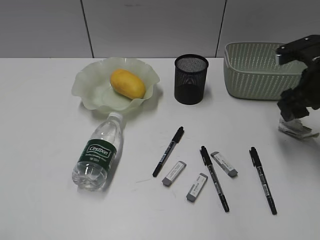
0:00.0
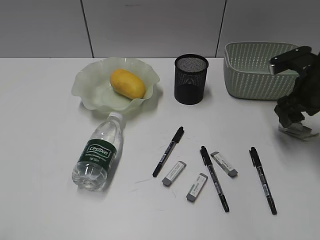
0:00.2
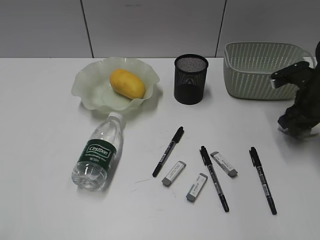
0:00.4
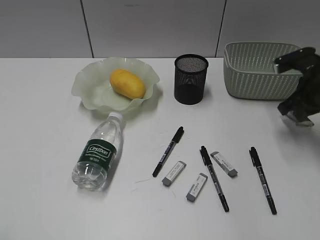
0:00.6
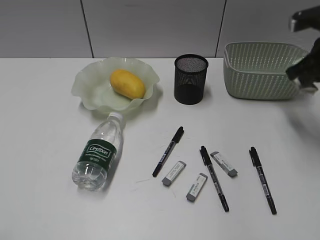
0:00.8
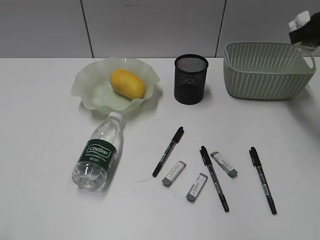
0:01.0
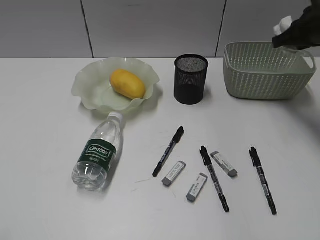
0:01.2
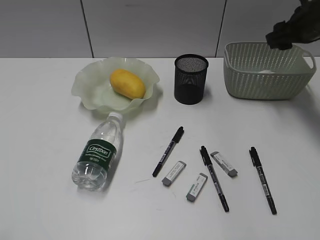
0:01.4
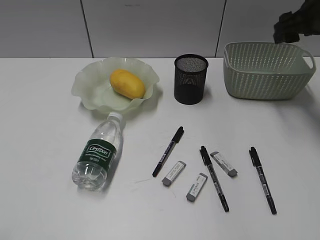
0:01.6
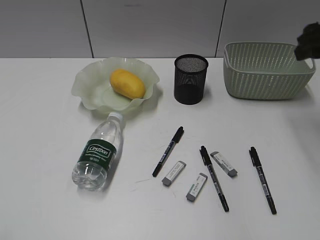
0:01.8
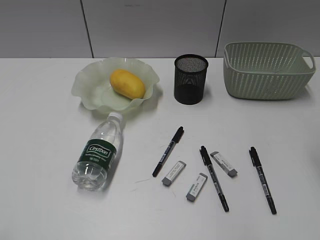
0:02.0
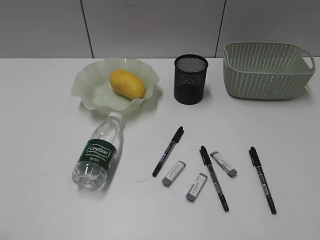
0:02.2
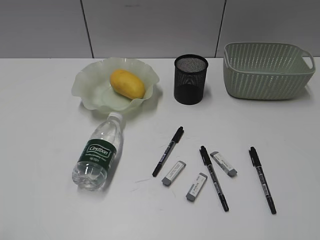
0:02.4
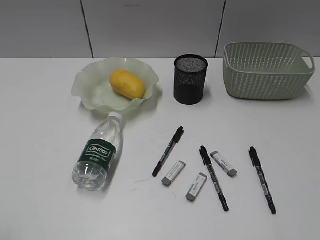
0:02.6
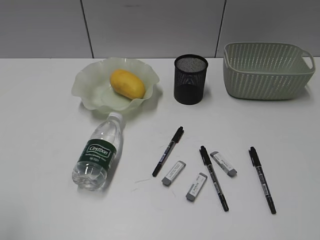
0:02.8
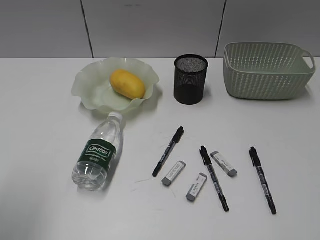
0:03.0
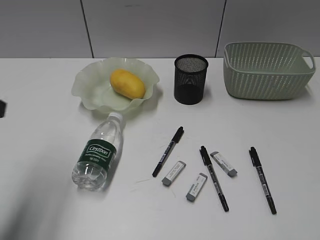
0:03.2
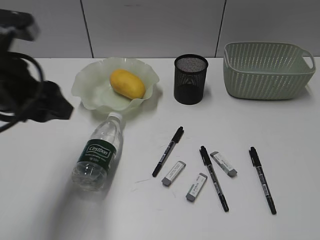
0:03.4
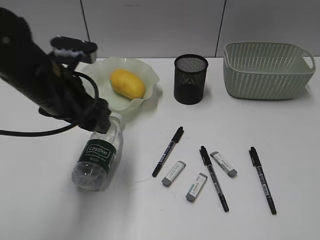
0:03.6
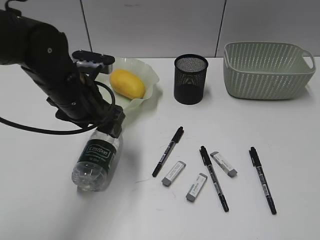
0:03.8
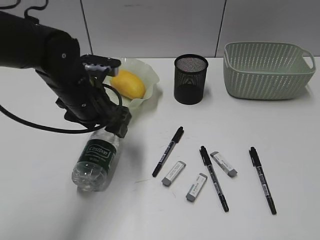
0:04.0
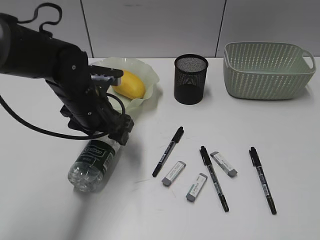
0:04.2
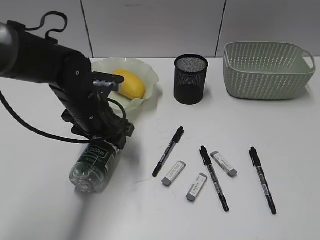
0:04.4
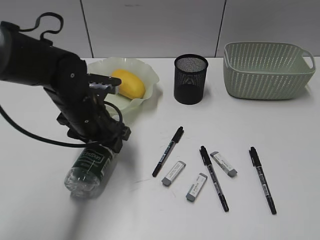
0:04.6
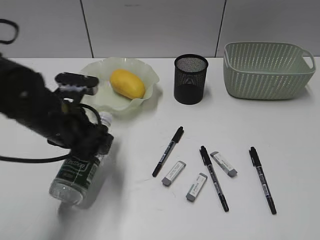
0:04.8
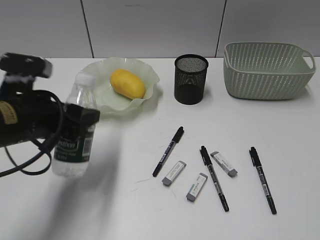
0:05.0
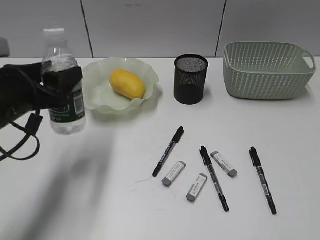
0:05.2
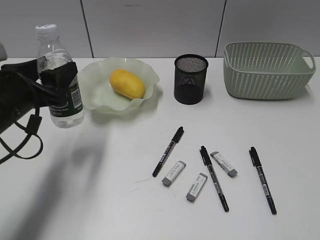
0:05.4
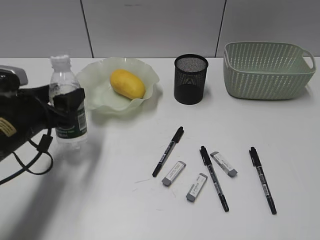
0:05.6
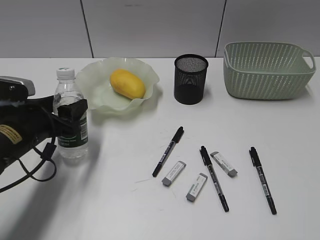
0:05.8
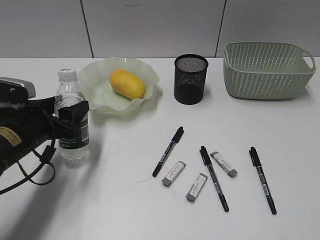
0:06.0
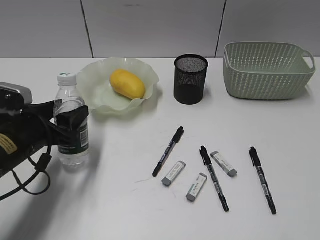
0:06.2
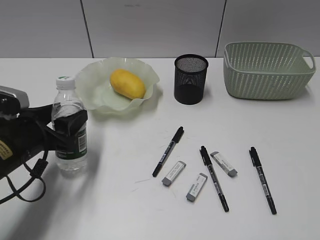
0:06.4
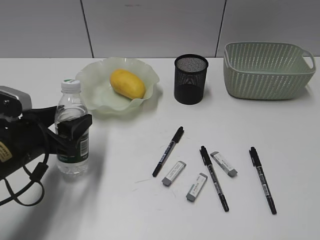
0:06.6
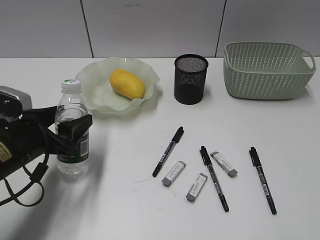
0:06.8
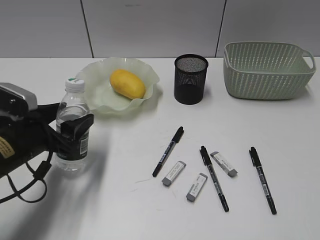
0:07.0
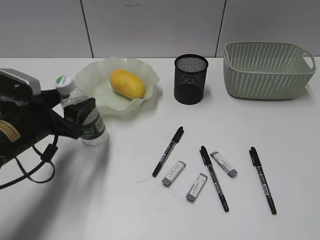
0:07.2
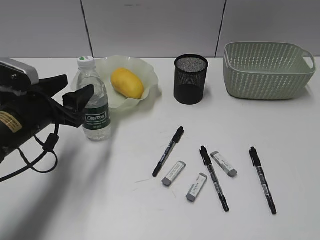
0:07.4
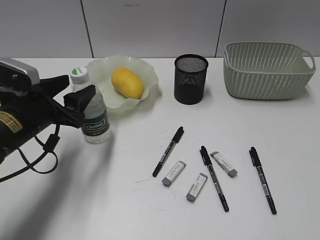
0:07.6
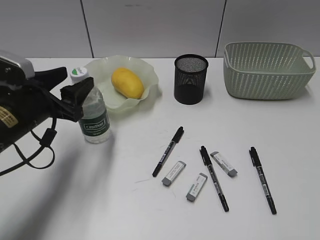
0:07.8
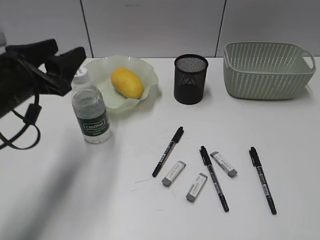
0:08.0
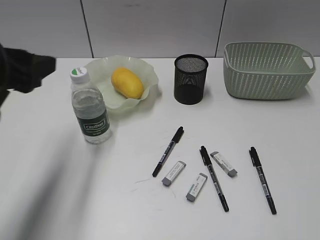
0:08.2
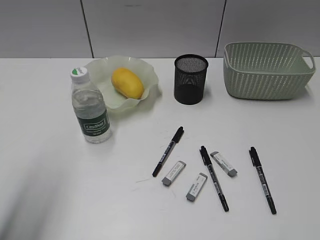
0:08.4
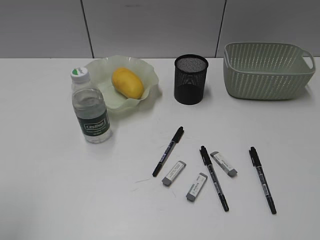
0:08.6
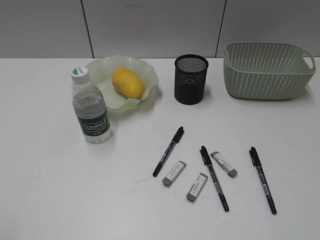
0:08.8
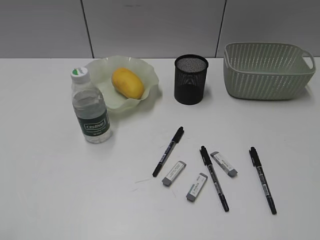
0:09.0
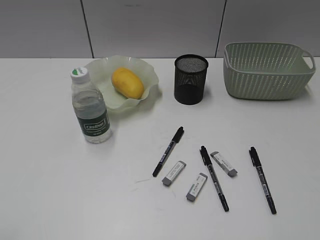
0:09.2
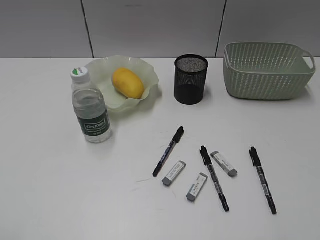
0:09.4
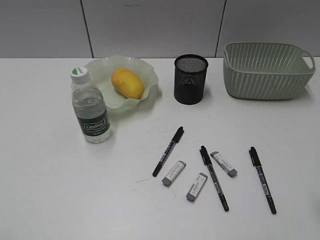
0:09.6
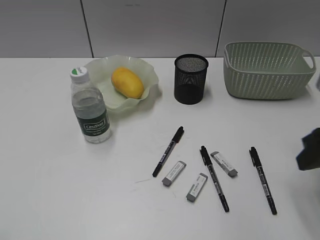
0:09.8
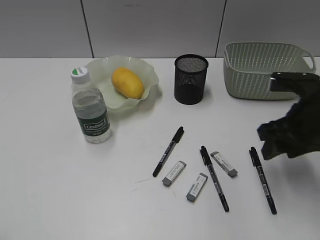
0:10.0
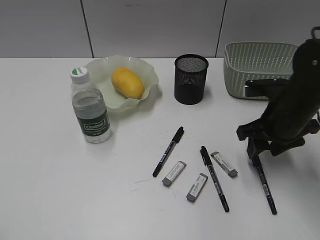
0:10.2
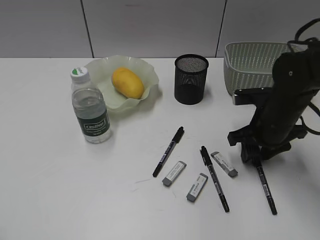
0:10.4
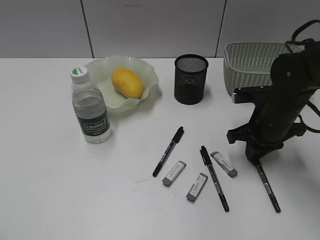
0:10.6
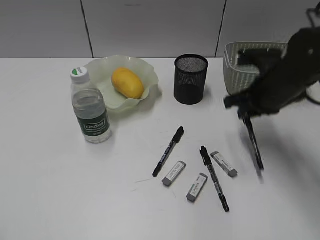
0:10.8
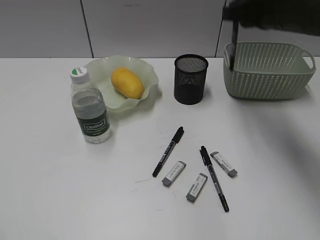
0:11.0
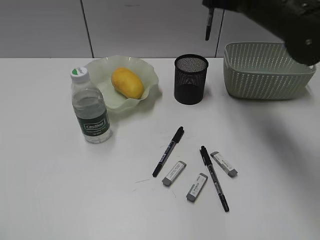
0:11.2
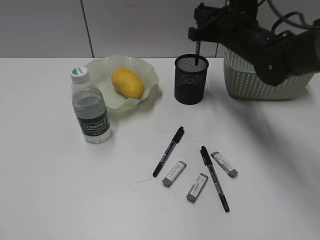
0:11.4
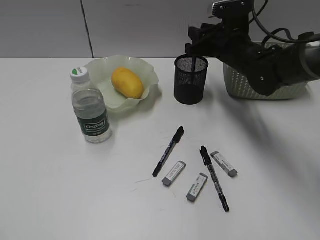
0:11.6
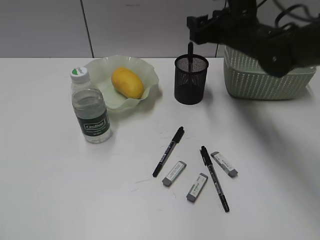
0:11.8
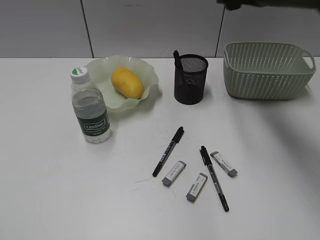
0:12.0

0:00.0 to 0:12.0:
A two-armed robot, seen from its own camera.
Step, 0:00.6 to 0:01.4: Place the waste paper in the basket with right gripper.
Step, 0:01.6 to 0:04.4: Grasp the bottle with left gripper.
Step, 0:04.6 to 0:07.4: Stand the bottle with left gripper.
Step, 0:07.6 to 0:10.4: Grasp the black pen with right gripper.
Step, 0:10.6 to 0:11.8: Place the black pen in pen holder with right gripper.
0:00.0 to 0:01.6: The right gripper moves up and down over some 15 cm, changing direction 2 times, and closes, then opens again.
0:01.6 to 0:03.0: The left gripper shifts approximately 10 cm forward. The right gripper travels backward by approximately 40 cm.
0:03.0 to 0:04.4: The left gripper moves forward, to the right and downward, about 35 cm.
0:04.4 to 0:06.0: The left gripper heads to the left and backward, covering roughly 10 cm.
0:06.0 to 0:07.6: The grippers move only a little.
0:07.6 to 0:09.0: The left gripper shifts approximately 35 cm backward, upward and to the left.
0:09.0 to 0:10.4: The right gripper shifts roughly 35 cm forward and downward.
0:10.4 to 0:12.0: The right gripper moves up and down over roughly 20 cm, changing direction 2 times, and closes and opens again.

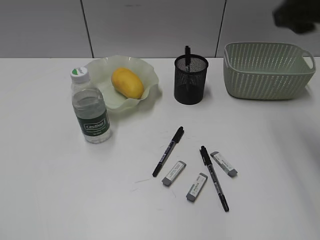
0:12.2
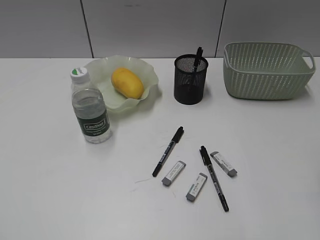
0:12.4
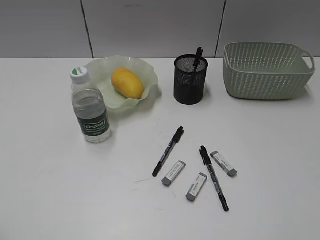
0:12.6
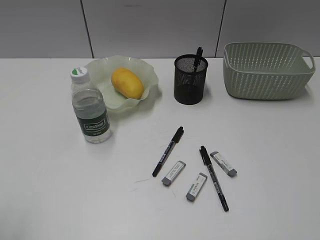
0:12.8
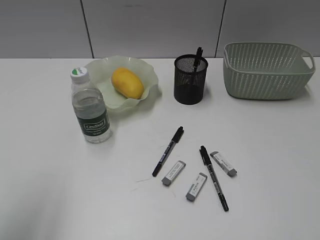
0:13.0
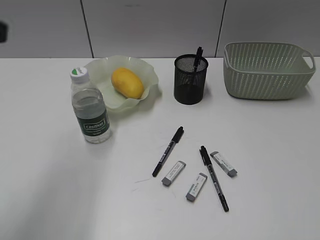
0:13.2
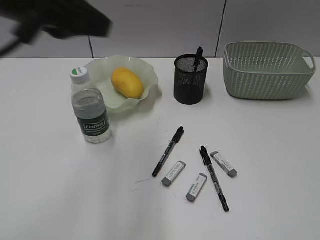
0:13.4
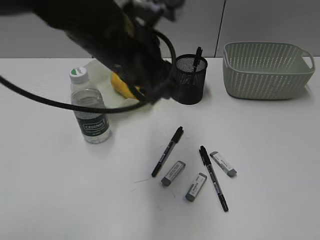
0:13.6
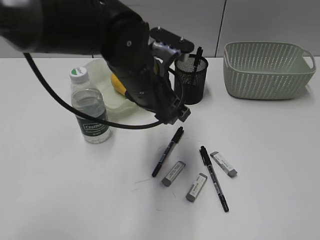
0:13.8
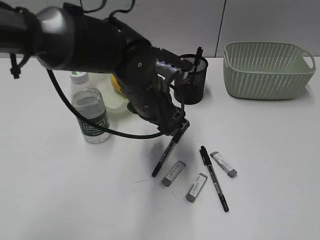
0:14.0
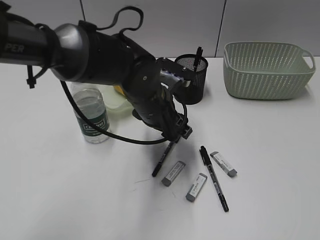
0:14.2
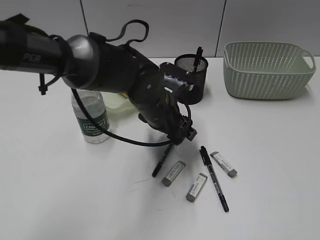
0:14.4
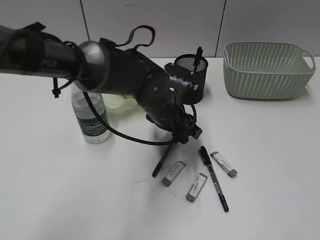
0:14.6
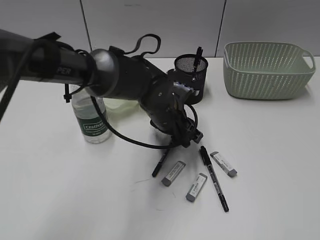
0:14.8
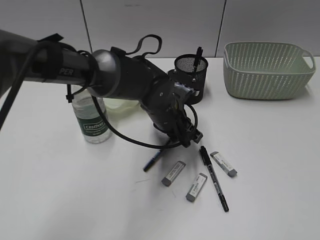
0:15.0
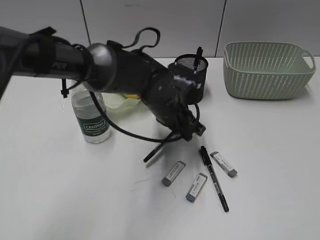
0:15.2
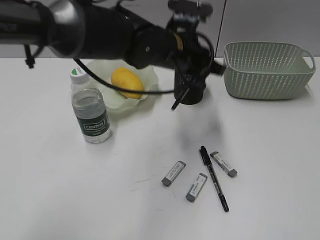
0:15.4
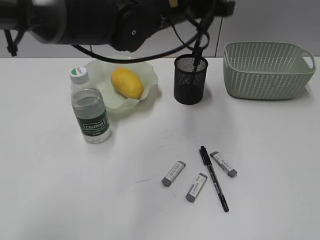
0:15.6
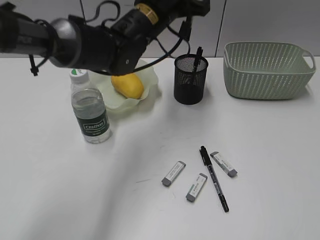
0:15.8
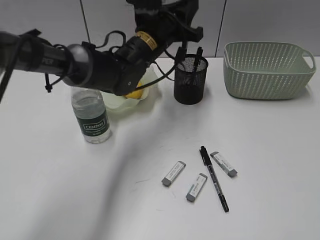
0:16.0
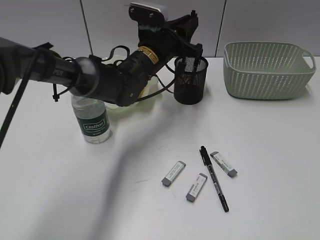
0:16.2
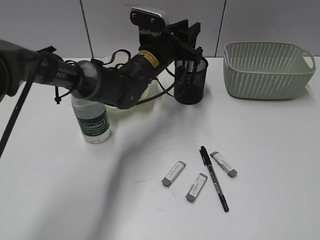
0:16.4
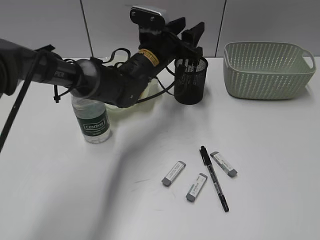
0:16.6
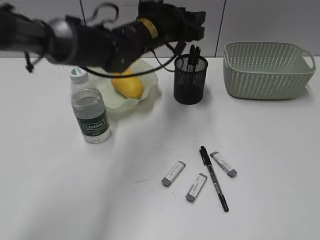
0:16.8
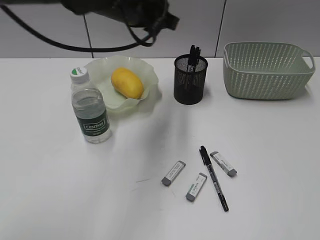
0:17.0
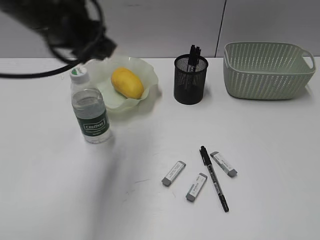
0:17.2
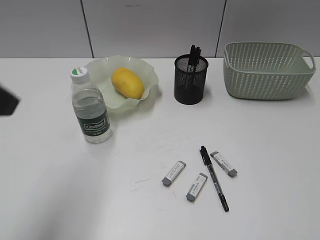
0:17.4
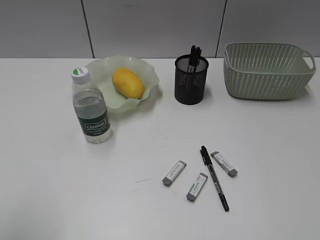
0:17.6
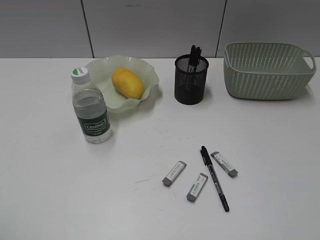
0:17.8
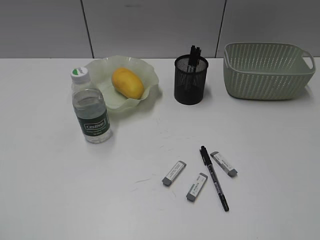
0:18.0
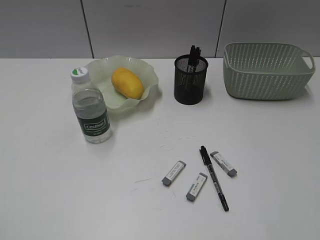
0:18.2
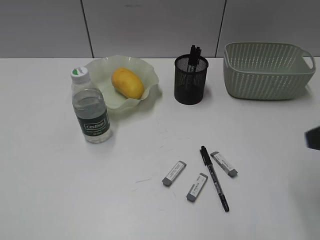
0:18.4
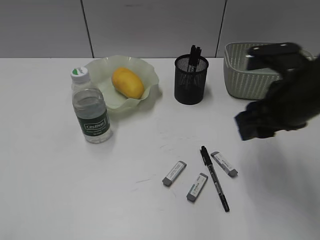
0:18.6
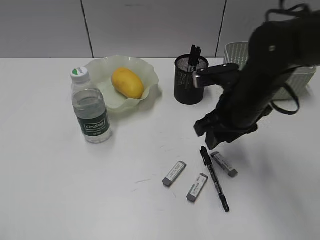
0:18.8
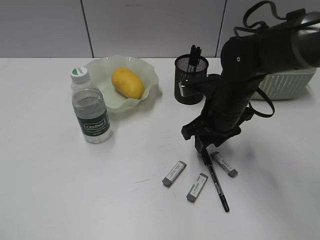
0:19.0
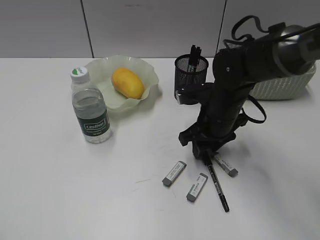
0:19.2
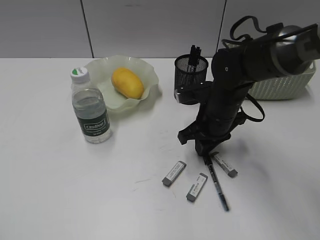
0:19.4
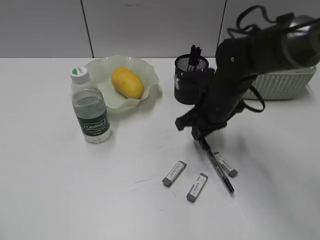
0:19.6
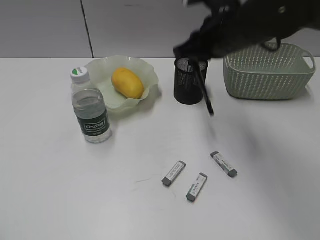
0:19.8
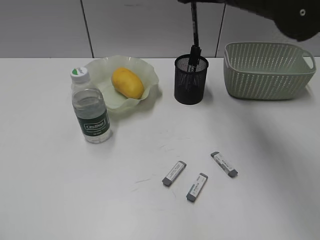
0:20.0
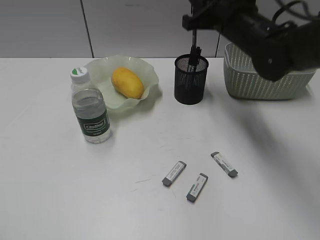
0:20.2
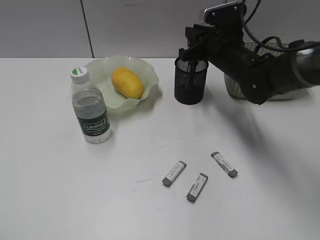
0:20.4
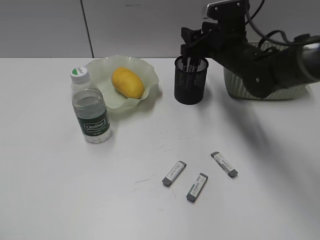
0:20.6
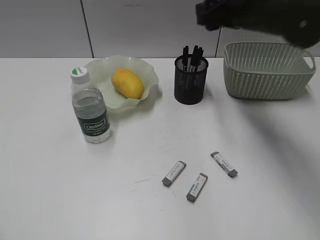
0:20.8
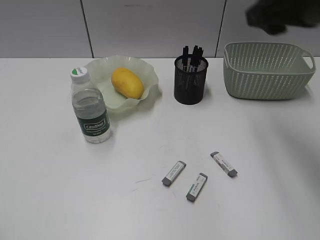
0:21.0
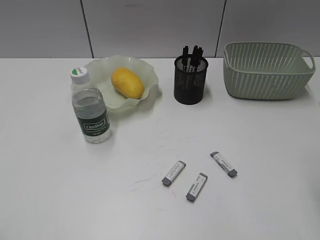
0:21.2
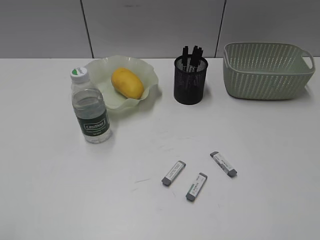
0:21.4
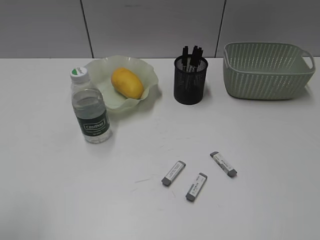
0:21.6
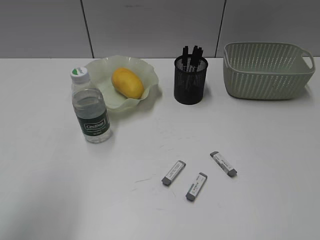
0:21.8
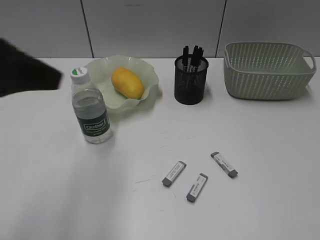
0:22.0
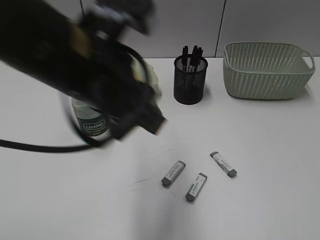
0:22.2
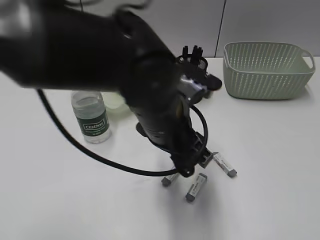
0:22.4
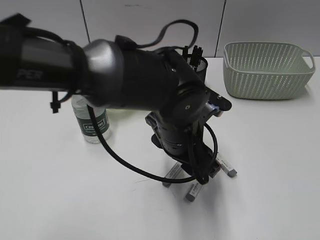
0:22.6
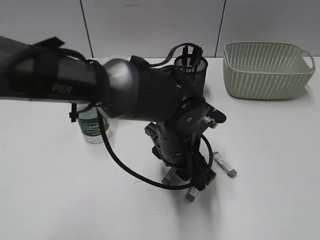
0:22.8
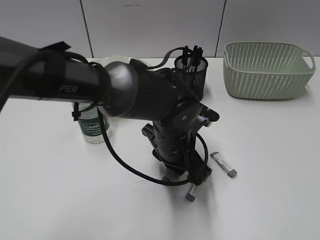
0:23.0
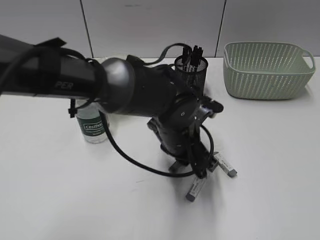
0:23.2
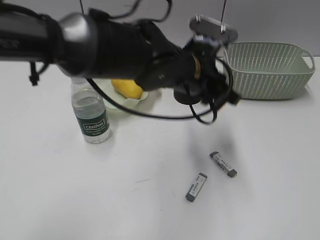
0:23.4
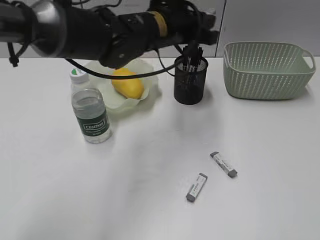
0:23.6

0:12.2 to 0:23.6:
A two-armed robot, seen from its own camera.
Step, 0:12.2 to 0:15.0: Grasp the black pen with left gripper.
Step, 0:15.2 to 0:16.6: Place the black pen in pen holder with left gripper.
Step, 0:16.8 to 0:19.4: Grasp the black pen with right gripper.
Step, 0:19.6 to 0:20.6: Place the black pen in pen holder with right gripper.
Step, 0:20.8 to 0:23.0: Grasp the eraser with left gripper.
0:12.2 to 0:13.6: The left gripper is displaced to the right and forward by approximately 40 cm, while the right gripper shifts some 30 cm backward.
0:13.6 to 0:15.0: The left gripper goes some 20 cm downward and forward, and opens, then closes again.
0:15.0 to 0:16.4: The left gripper moves forward, about 10 cm, and goes upward and returns, about 15 cm each way.
0:16.4 to 0:17.8: The left gripper is displaced backward and to the left by roughly 50 cm, and opens its fingers.
0:17.8 to 0:19.4: The right gripper is displaced forward, to the left and downward by approximately 40 cm.
0:19.4 to 0:20.8: The right gripper goes up and down, about 20 cm each way, reversing 2 times, and opens up.
0:20.8 to 0:22.2: The right gripper travels backward and to the right by roughly 40 cm. Meanwhile the left gripper moves to the right and forward, about 30 cm.
0:22.2 to 0:23.6: The left gripper goes about 20 cm forward and to the right, goes downward and returns, roughly 20 cm each way, and opens, then closes again.
